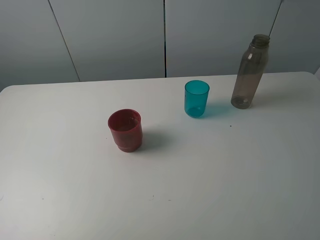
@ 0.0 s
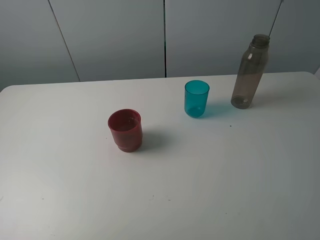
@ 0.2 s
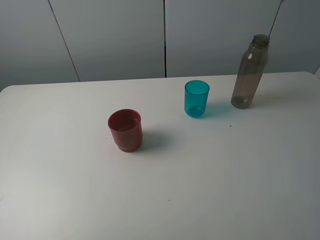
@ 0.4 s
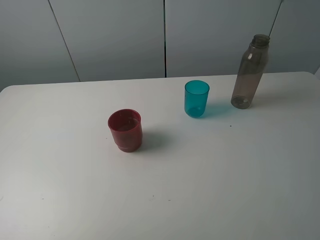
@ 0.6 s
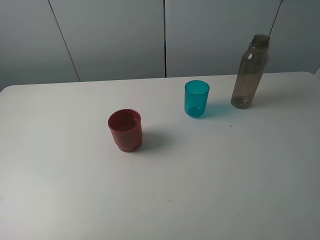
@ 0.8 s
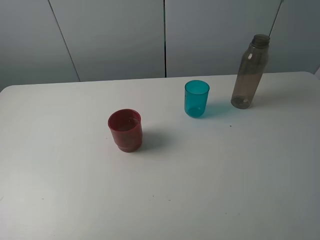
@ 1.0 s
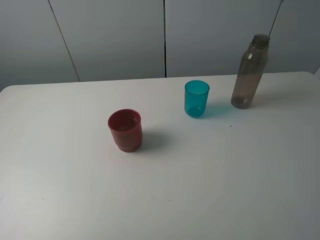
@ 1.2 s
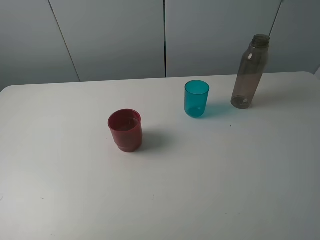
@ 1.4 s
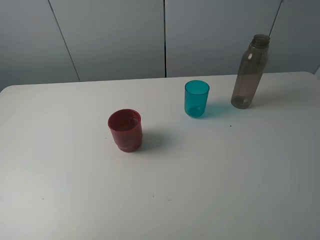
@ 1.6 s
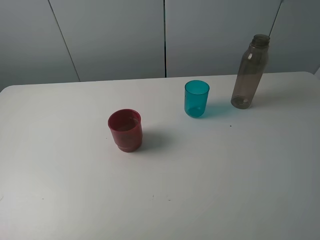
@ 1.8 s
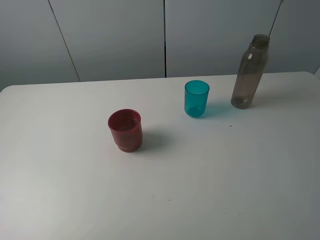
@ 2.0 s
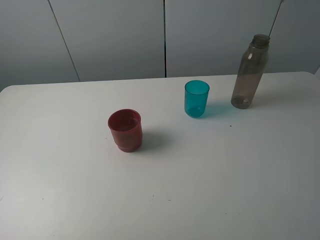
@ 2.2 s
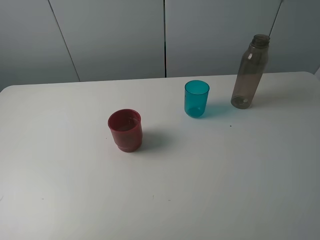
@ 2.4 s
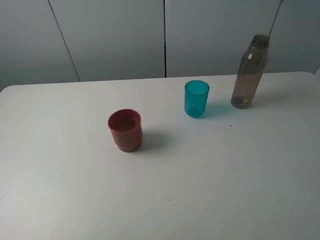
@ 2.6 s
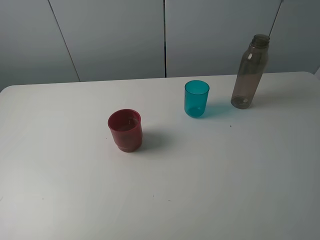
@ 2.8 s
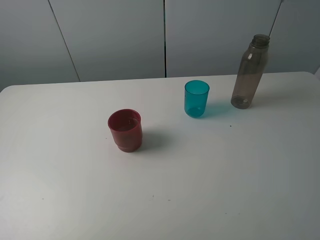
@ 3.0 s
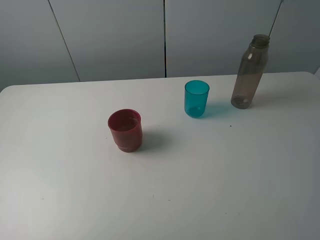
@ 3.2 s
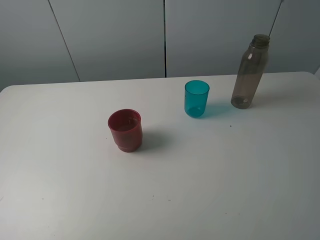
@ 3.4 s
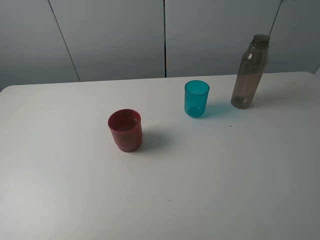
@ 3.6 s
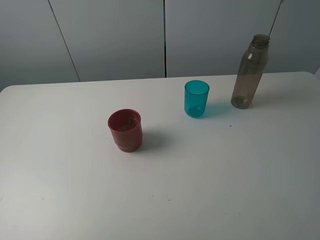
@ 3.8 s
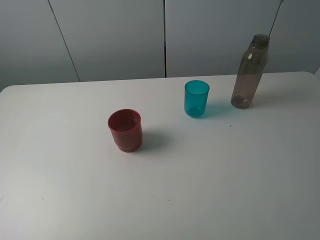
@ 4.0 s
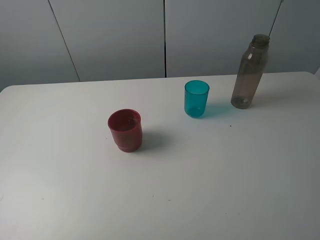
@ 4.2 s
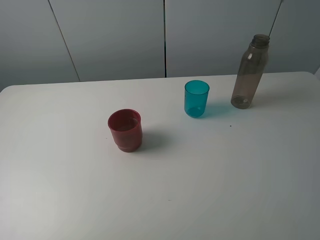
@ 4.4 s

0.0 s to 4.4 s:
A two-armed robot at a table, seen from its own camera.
Task of the whole recording: pick up the bottle and pour water into the cup, then pick up the cup containing water and pour it into another cup.
0.0 to 4.4 s: Both grippers stay put.
